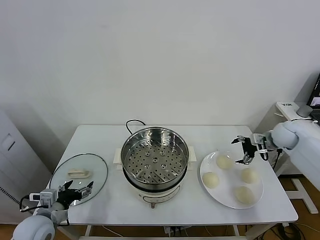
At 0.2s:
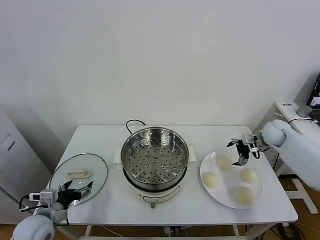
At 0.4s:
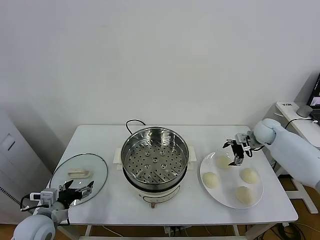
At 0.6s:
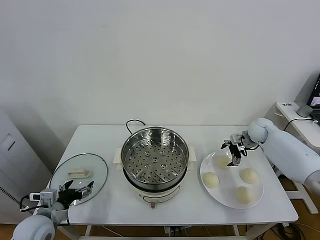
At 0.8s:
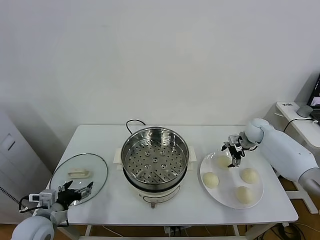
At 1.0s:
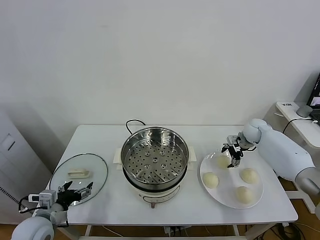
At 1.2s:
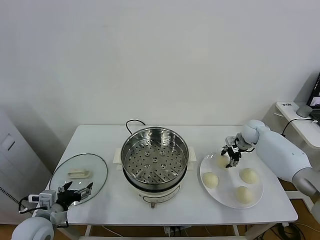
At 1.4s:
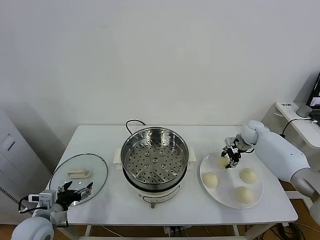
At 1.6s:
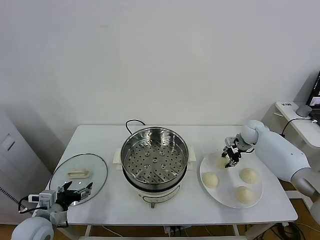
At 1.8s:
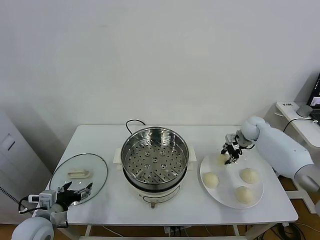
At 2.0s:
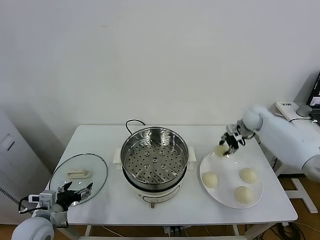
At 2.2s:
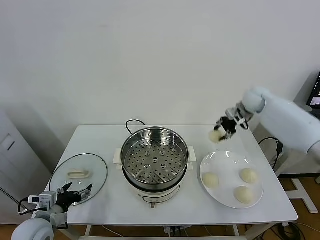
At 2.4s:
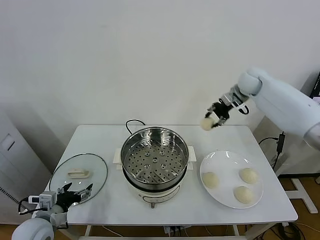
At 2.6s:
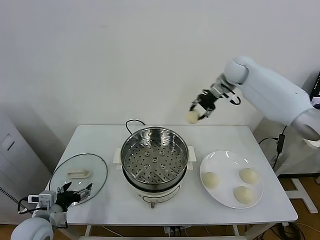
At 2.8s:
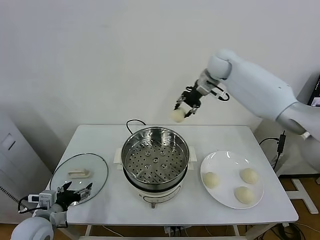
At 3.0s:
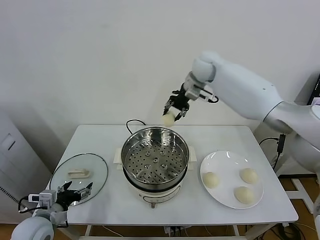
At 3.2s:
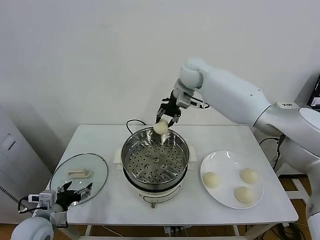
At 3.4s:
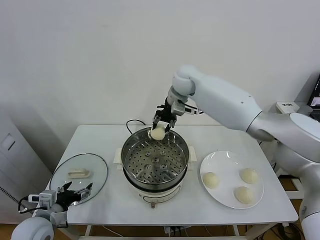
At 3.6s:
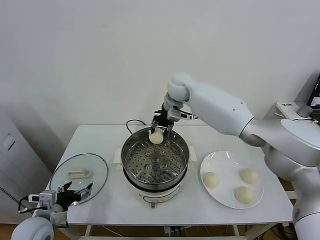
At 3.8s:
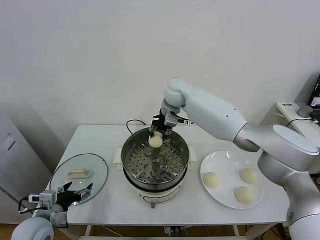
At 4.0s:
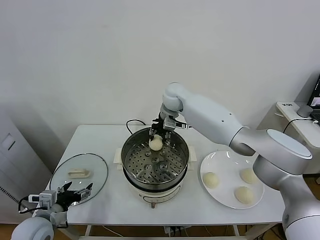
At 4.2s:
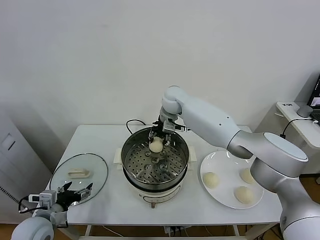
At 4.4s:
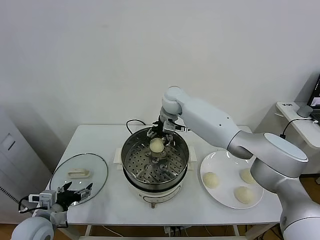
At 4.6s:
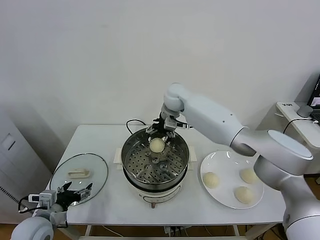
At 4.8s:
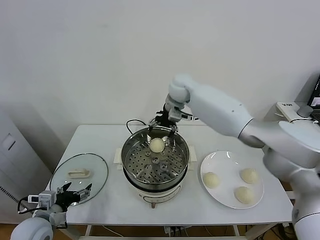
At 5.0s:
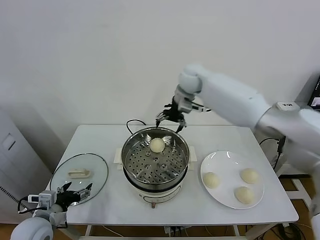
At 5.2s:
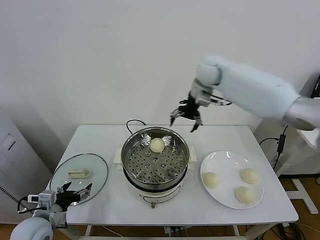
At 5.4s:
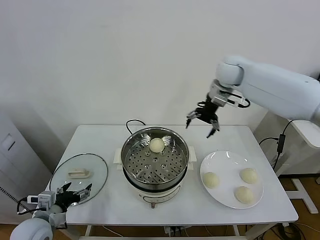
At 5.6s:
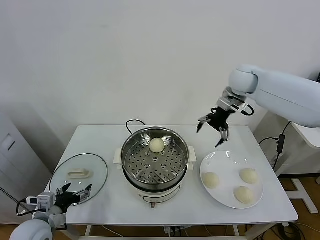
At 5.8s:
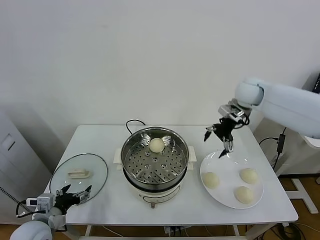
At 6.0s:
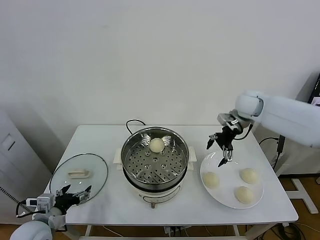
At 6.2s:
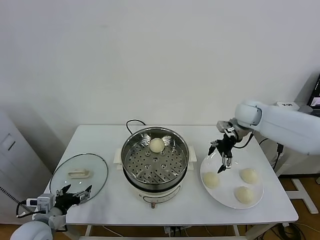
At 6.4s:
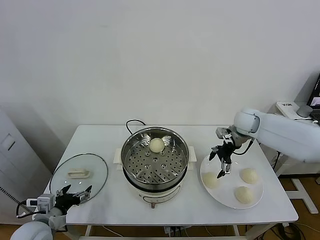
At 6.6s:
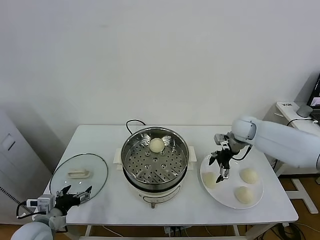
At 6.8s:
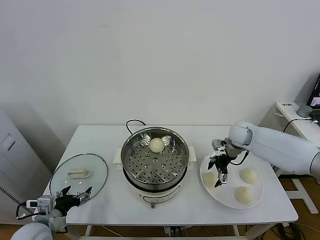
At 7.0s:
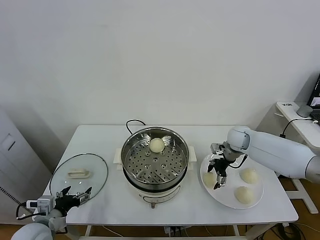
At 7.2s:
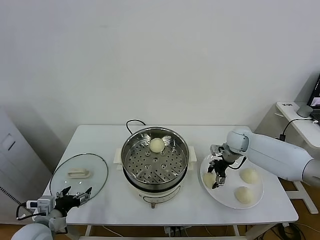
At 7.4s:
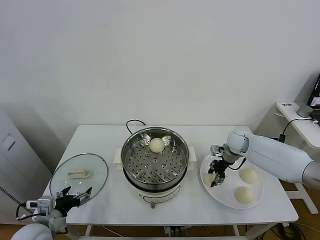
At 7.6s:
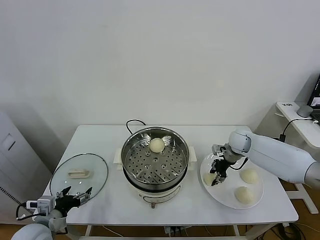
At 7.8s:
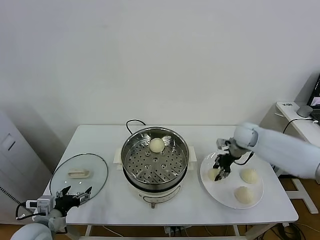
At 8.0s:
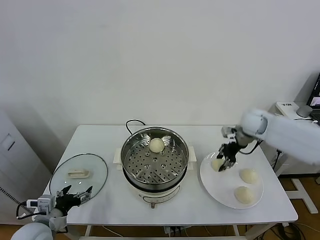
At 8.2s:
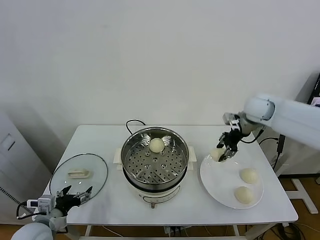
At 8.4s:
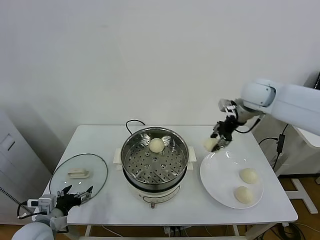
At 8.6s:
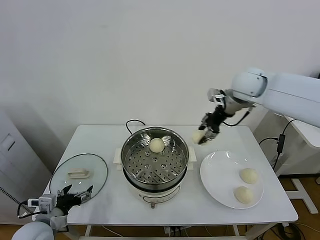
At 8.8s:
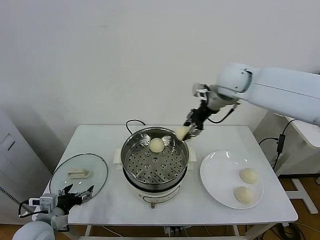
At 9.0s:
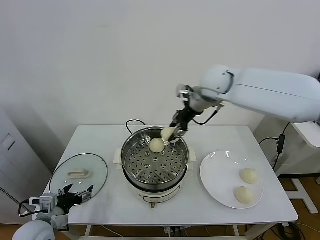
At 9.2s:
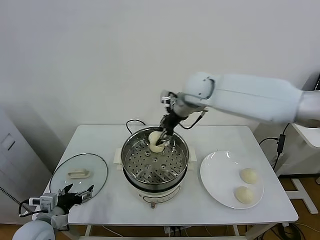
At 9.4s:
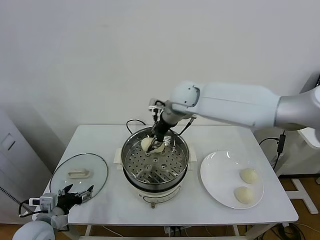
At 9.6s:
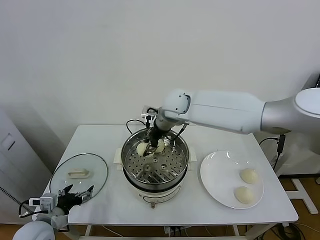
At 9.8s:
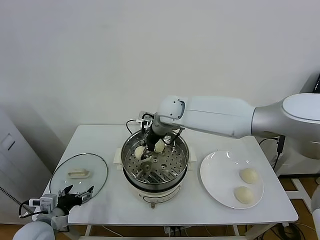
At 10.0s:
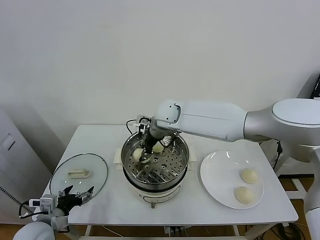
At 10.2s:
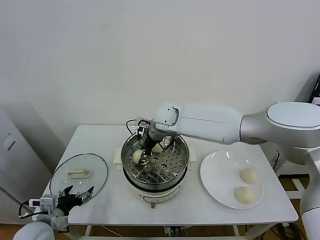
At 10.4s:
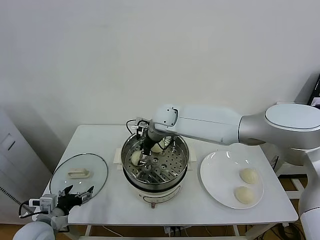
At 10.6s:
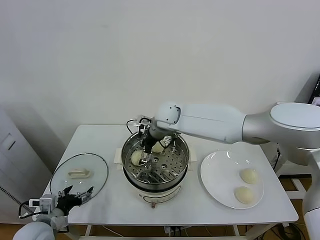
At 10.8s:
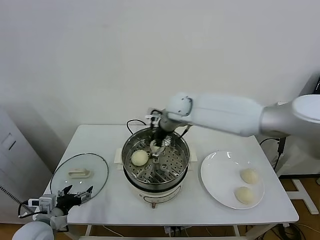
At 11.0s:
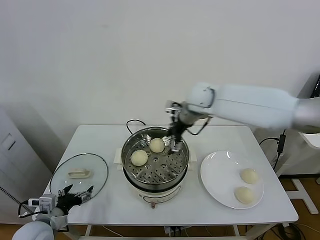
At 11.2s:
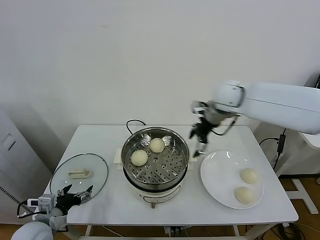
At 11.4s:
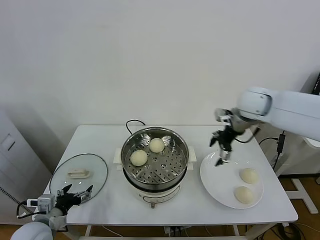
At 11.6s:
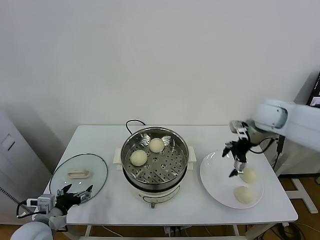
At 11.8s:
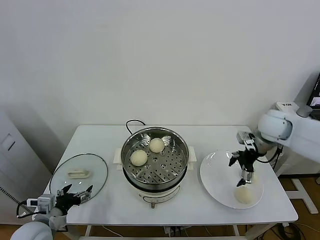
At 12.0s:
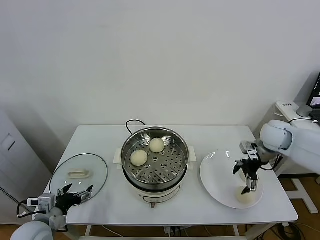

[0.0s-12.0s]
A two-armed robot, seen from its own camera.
Task of the whole recording: take steamed baozi put them in steamer.
Step, 1.6s to 4.4s: Place the baozi on the steamer with right gripper.
Step, 4.8s to 7.6s: Grasp the baozi in the plate with right gripper.
Step, 7.8s to 10.6s: Place the baozi on the steamer with right gripper.
0.0s to 1.6s: The right gripper goes roughly 10 cm forward and to the left, and closes up.
1.6s to 3.0s: The right gripper moves to the left and upward, about 35 cm.
3.0s to 4.4s: The right gripper goes approximately 15 cm downward and to the left, and opens.
4.4s to 6.0s: The right gripper travels to the right by about 25 cm.
6.0s to 7.6s: The right gripper moves downward, some 15 cm, and closes its fingers.
7.6s to 9.0s: The right gripper goes roughly 30 cm upward and to the left.
9.0s to 10.4s: The right gripper moves downward and to the left, some 20 cm, and opens up.
10.4s to 12.0s: The right gripper is displaced to the right by some 35 cm.

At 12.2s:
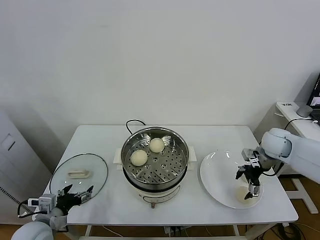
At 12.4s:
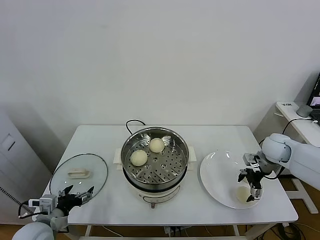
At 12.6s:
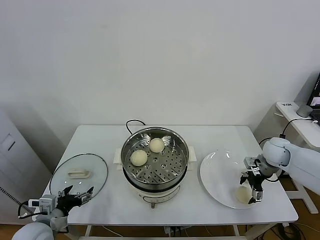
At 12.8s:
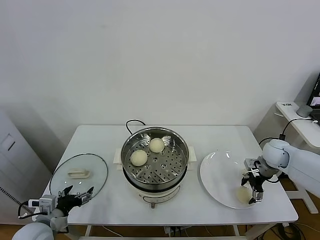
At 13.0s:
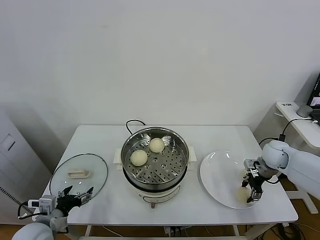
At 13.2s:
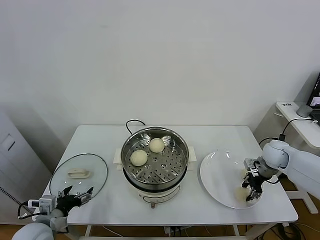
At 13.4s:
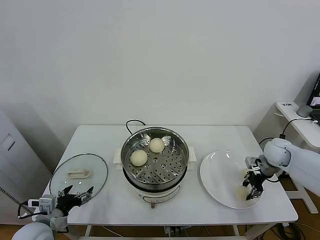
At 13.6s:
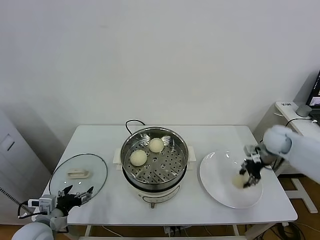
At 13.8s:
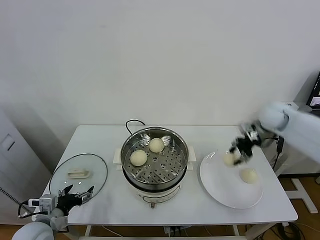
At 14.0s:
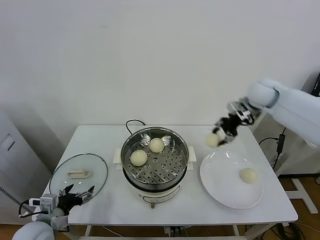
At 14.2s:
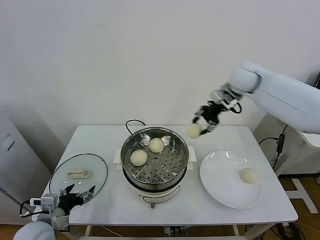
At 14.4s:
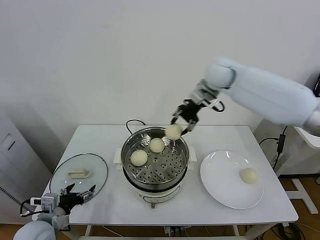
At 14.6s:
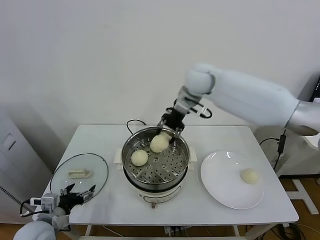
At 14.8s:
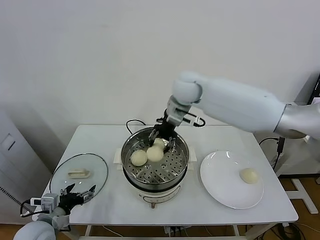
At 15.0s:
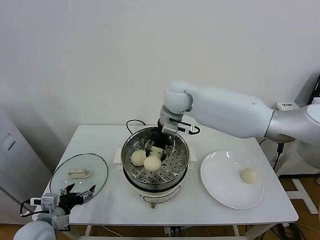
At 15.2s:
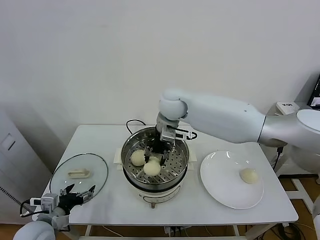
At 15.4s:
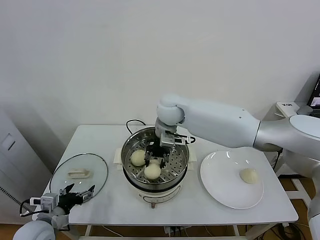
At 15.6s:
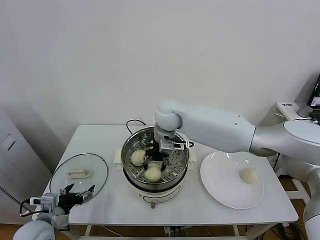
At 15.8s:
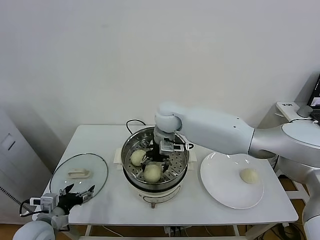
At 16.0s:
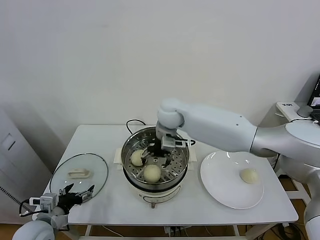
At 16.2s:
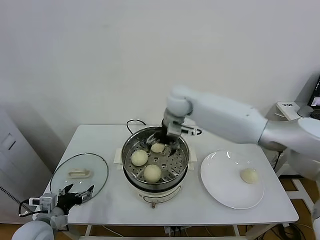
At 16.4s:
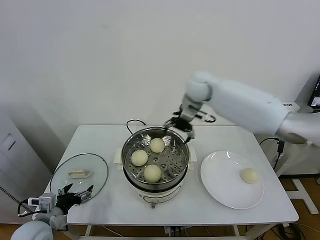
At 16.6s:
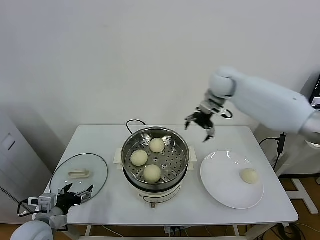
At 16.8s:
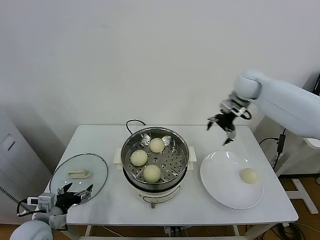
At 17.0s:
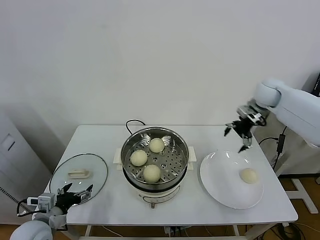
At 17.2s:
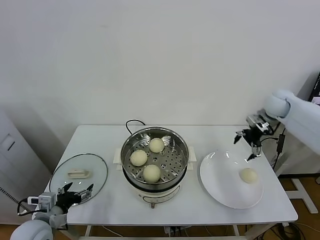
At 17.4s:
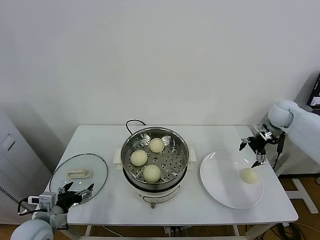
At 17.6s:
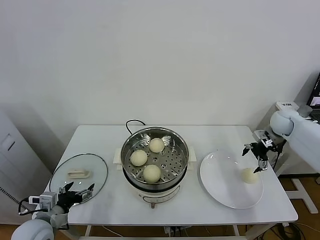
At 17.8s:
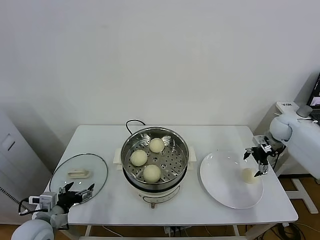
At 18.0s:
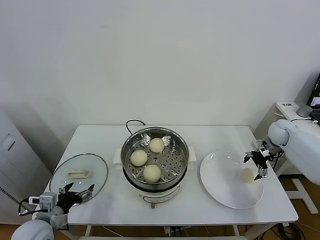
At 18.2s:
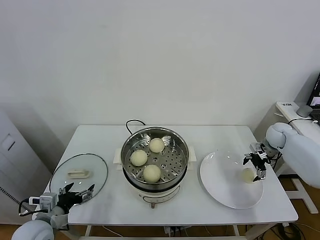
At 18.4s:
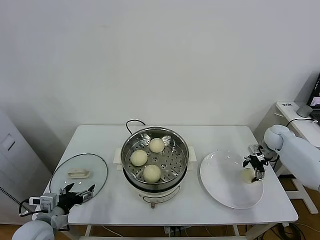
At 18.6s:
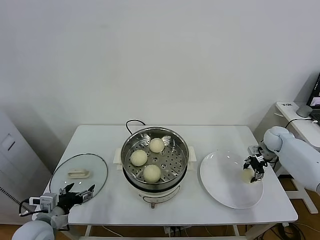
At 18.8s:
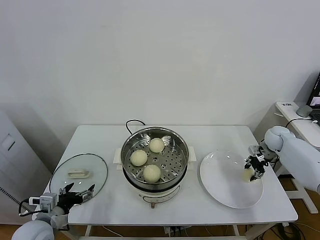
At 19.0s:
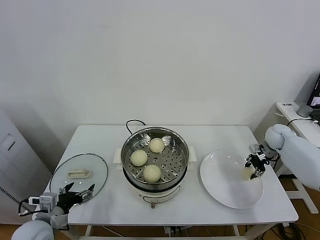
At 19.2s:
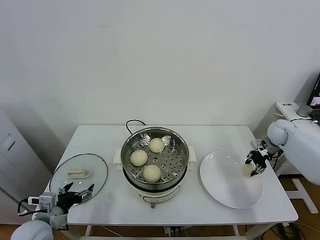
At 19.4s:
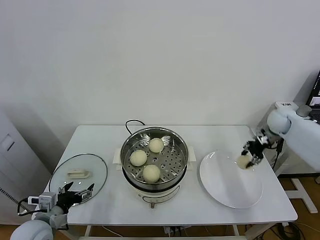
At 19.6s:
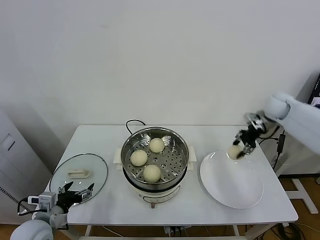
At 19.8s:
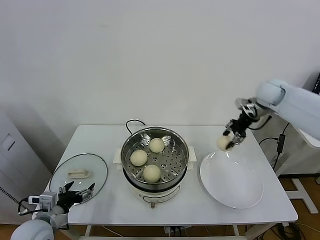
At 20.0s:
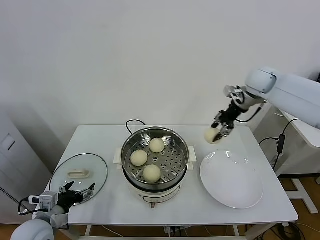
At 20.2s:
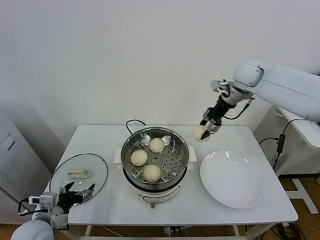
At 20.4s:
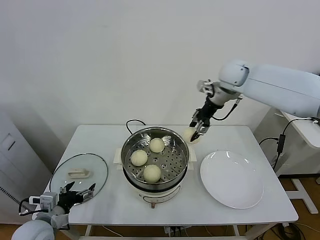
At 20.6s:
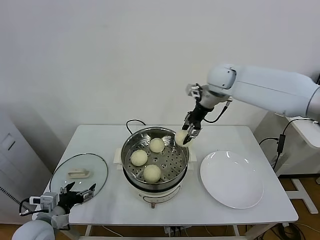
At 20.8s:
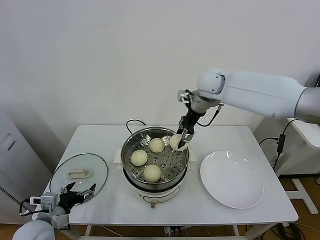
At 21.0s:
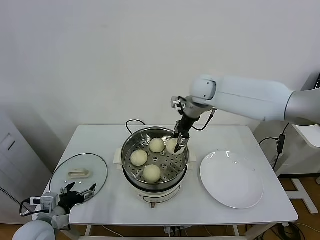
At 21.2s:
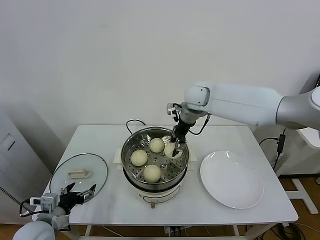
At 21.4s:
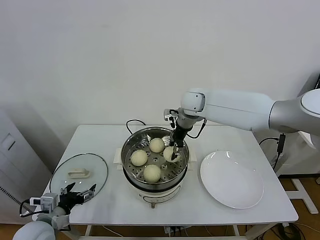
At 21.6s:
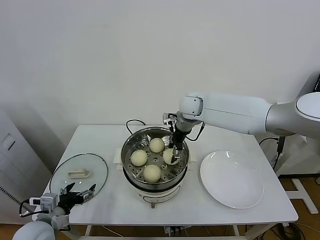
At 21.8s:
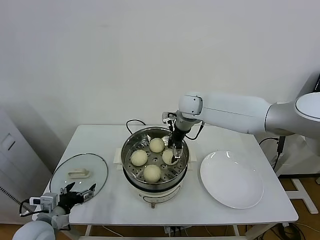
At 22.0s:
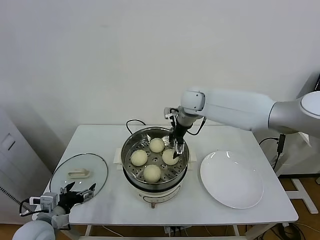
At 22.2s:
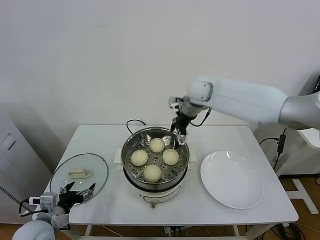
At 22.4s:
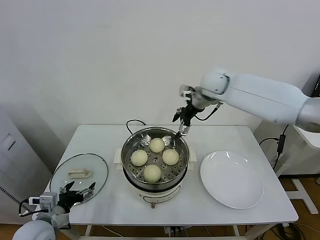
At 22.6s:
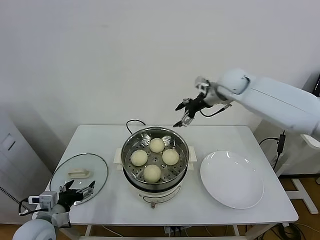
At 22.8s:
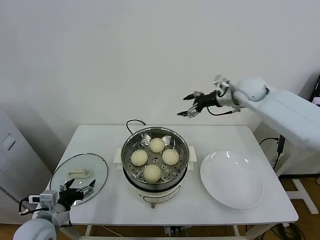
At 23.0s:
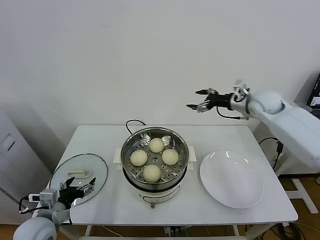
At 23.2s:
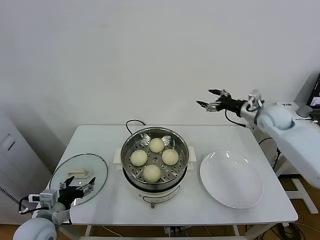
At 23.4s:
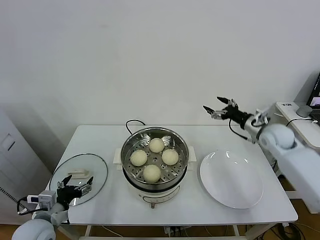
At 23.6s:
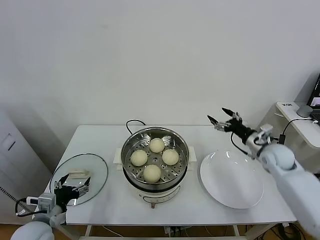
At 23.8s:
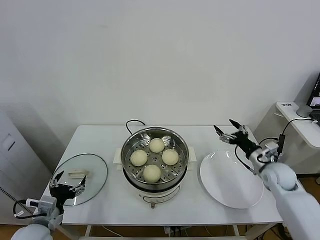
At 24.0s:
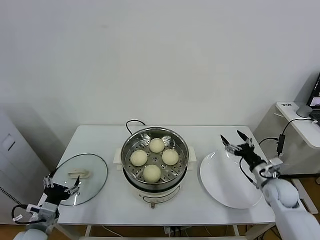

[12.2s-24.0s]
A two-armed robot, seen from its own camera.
Task of the whole recording: take steamed baozi put them in steamer.
Step, 13.4s to 16.0s: Place the baozi on the steamer with right gripper.
Step, 16.2s to 18.6s: Grasp the baozi in the plate with right gripper.
Step, 18.8s to 22.0s: Place the baozi on the steamer with right gripper.
12.2s to 13.6s: The right gripper travels downward and back again, about 5 cm each way, and closes.
13.6s to 15.2s: The right gripper goes approximately 35 cm to the left.
15.2s to 16.6s: The right gripper moves to the right, roughly 20 cm, and opens its fingers.
16.6s to 18.2s: The right gripper shifts about 35 cm to the right and downward.
18.2s to 19.6s: The right gripper shifts roughly 15 cm upward and to the left, and closes its fingers.
19.6s to 21.0s: The right gripper goes approximately 25 cm to the left.
21.0s to 22.6s: The right gripper shifts approximately 10 cm to the right, and opens.
22.6s to 24.0s: The right gripper heads downward, backward and to the right, covering roughly 40 cm.
